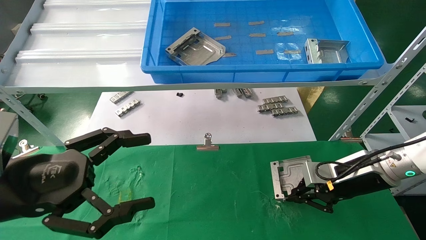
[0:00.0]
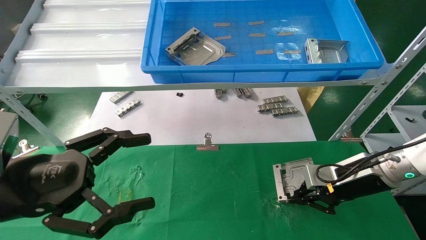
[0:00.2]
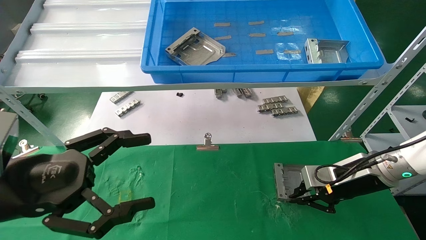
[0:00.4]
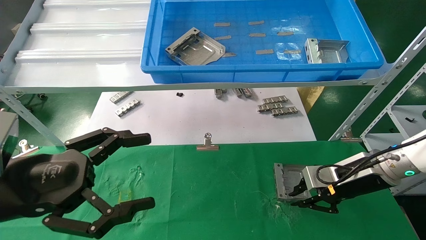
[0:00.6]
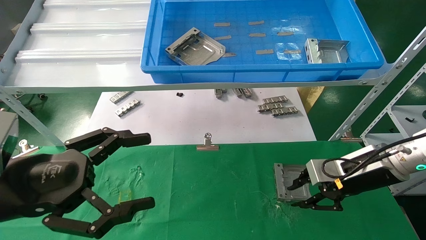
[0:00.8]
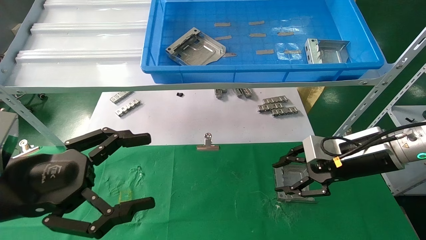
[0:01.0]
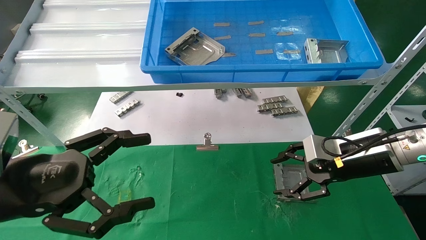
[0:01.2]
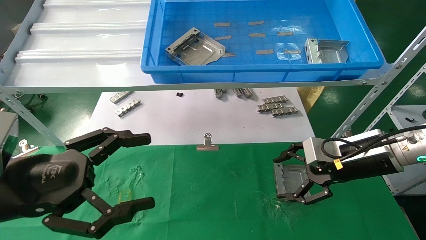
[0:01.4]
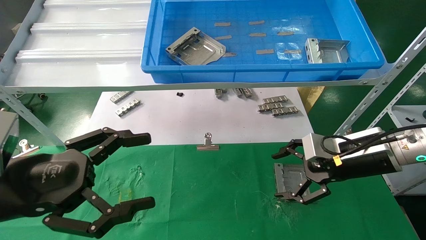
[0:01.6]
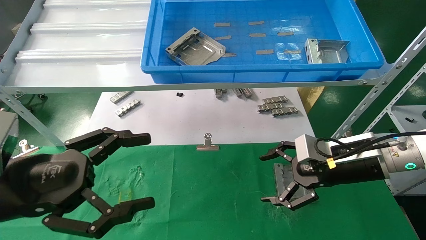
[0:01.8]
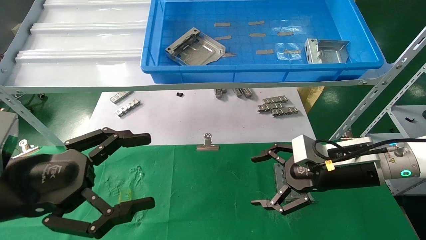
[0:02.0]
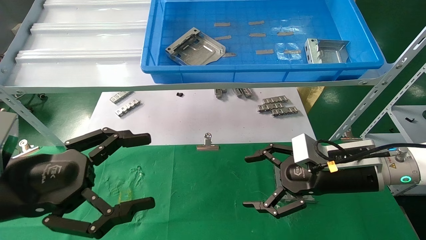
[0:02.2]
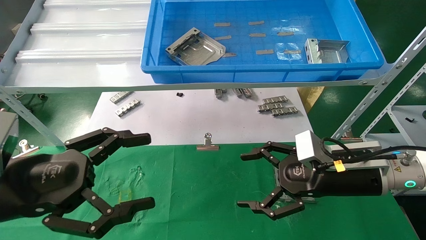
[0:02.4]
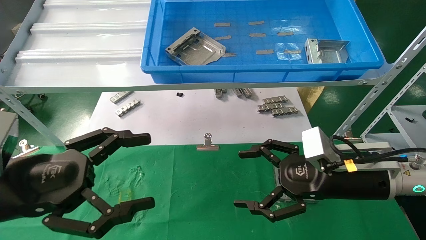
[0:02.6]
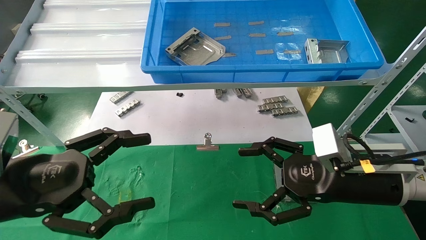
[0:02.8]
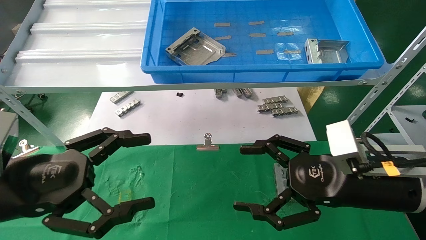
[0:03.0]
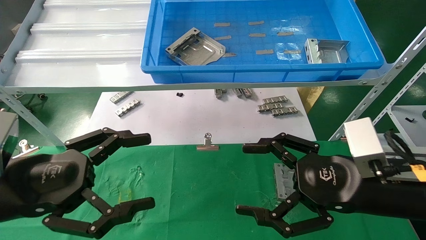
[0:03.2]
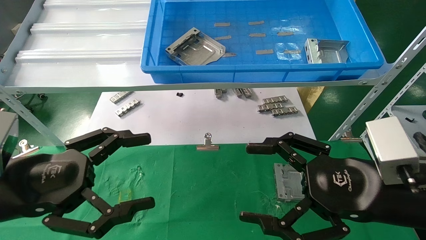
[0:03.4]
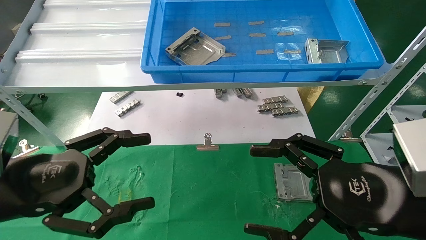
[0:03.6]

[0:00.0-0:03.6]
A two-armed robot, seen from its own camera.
Task of the whole recording: use the mechanical arm to pick up the parts and place them on the table.
0:00.0 to 0:01.8: The right gripper changes place by some 5 cm, and opens up.
0:01.8 to 0:03.6: The right gripper shifts some 15 cm backward.
